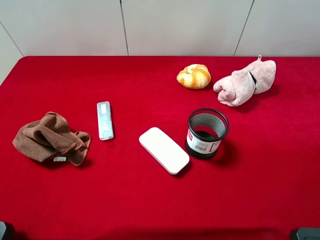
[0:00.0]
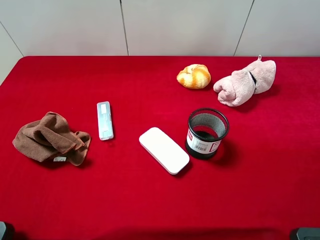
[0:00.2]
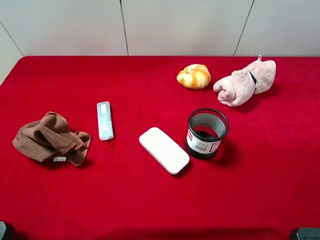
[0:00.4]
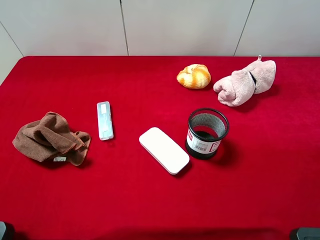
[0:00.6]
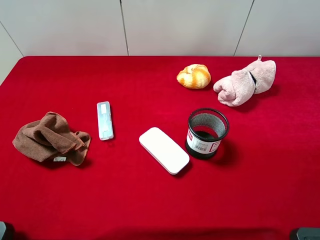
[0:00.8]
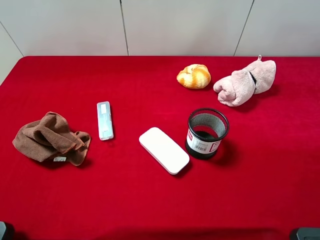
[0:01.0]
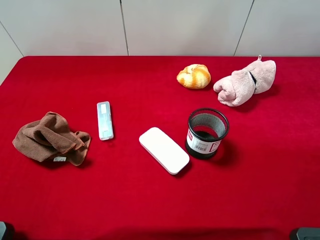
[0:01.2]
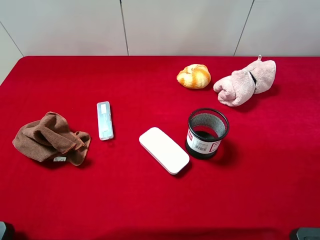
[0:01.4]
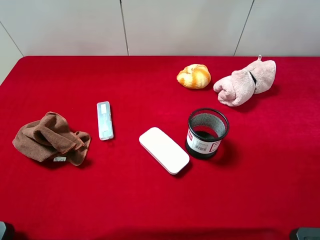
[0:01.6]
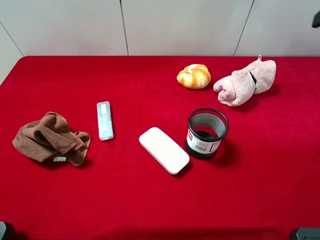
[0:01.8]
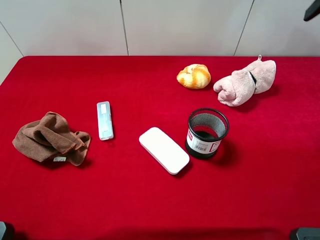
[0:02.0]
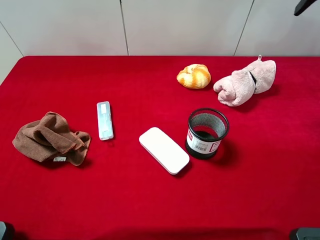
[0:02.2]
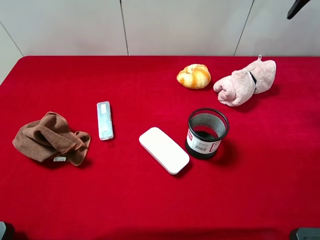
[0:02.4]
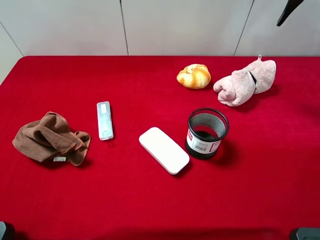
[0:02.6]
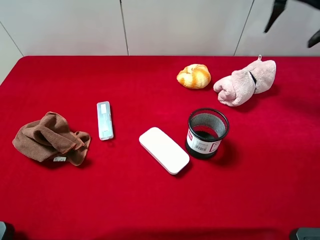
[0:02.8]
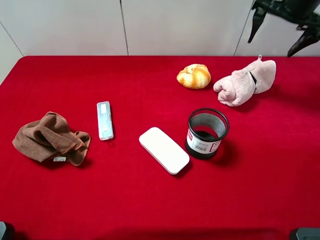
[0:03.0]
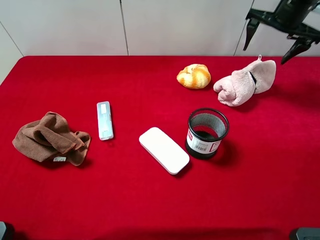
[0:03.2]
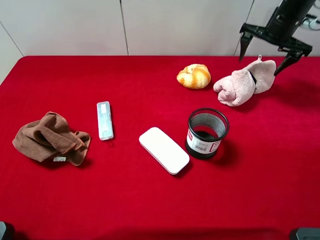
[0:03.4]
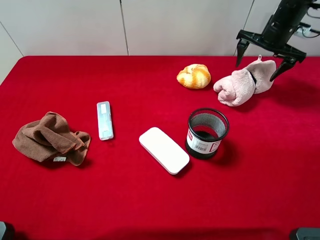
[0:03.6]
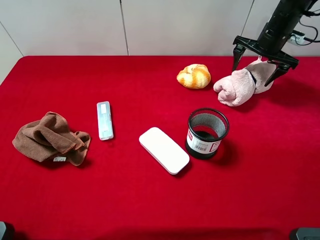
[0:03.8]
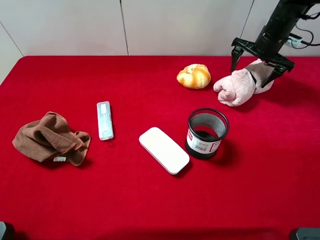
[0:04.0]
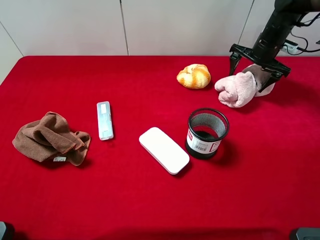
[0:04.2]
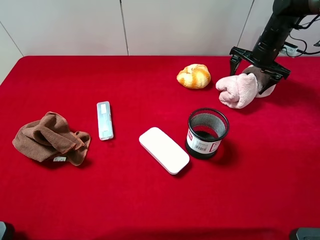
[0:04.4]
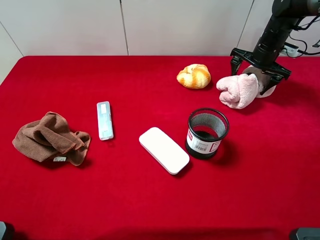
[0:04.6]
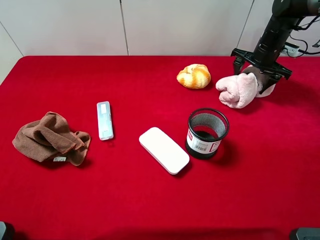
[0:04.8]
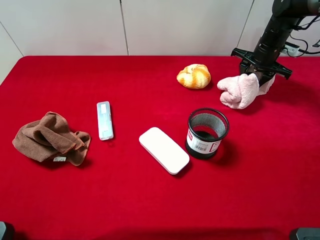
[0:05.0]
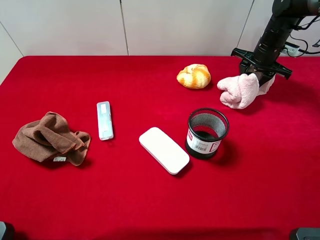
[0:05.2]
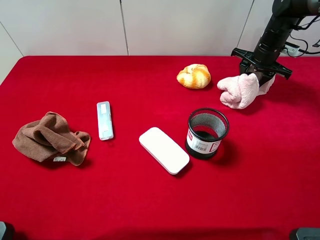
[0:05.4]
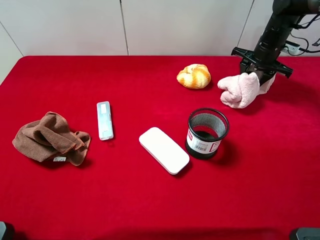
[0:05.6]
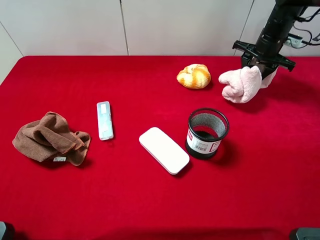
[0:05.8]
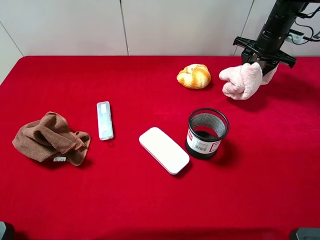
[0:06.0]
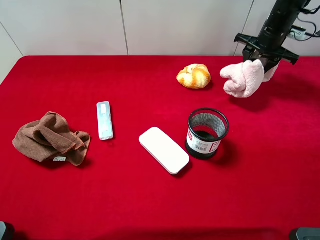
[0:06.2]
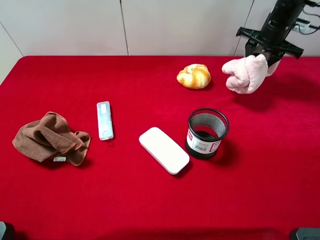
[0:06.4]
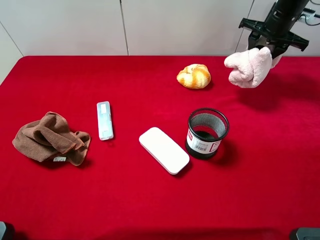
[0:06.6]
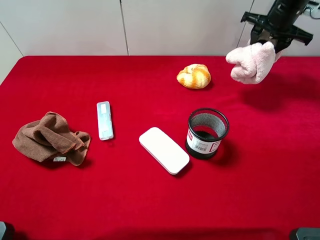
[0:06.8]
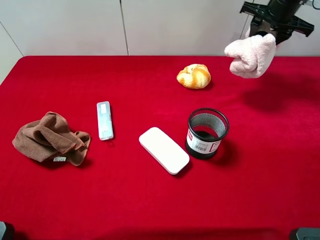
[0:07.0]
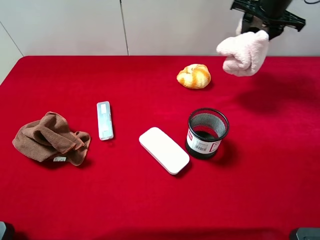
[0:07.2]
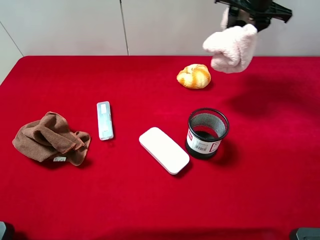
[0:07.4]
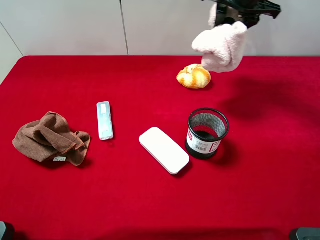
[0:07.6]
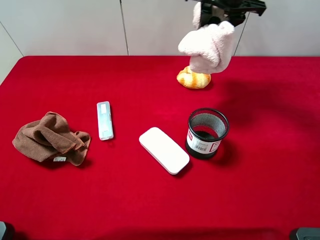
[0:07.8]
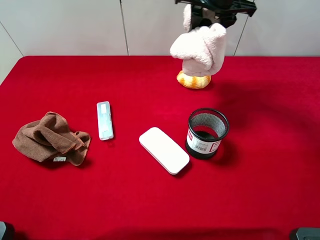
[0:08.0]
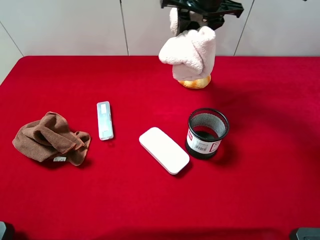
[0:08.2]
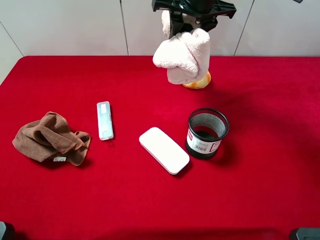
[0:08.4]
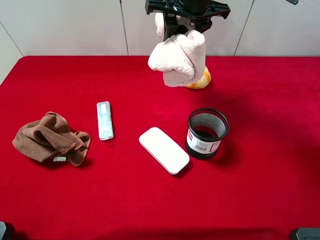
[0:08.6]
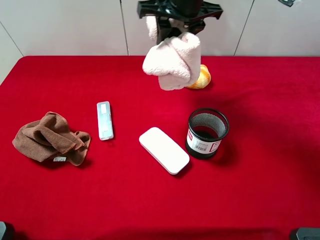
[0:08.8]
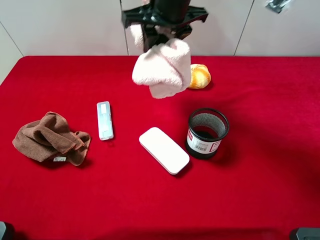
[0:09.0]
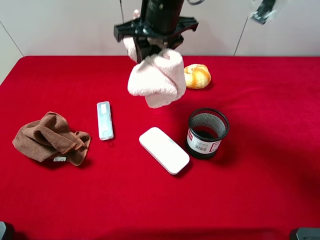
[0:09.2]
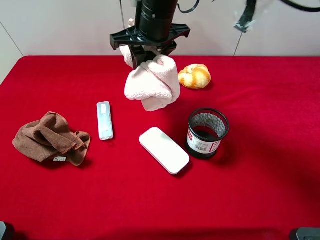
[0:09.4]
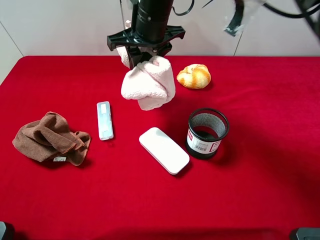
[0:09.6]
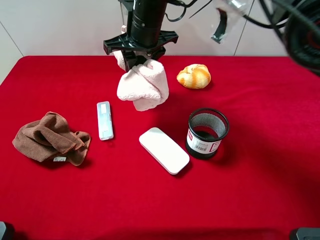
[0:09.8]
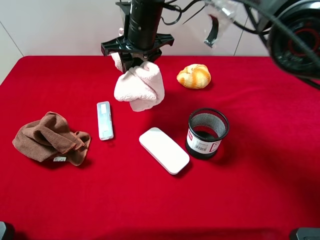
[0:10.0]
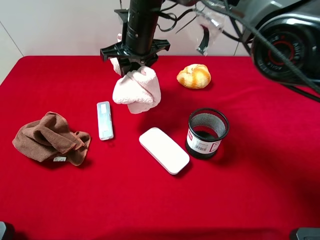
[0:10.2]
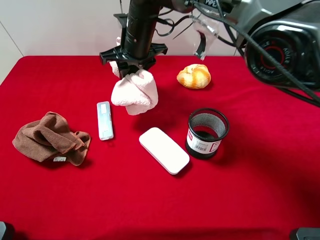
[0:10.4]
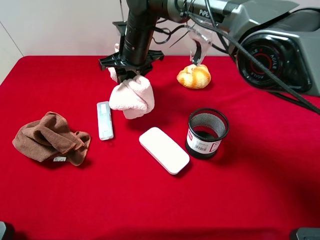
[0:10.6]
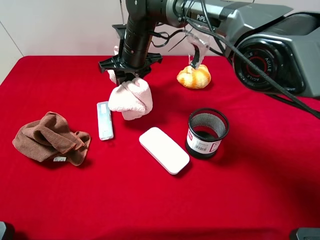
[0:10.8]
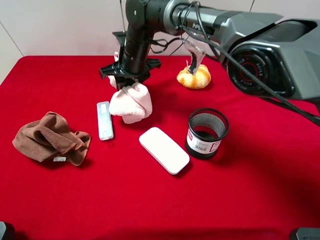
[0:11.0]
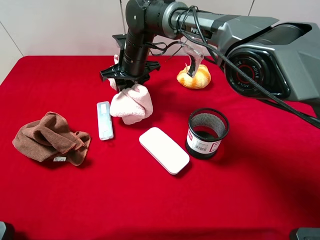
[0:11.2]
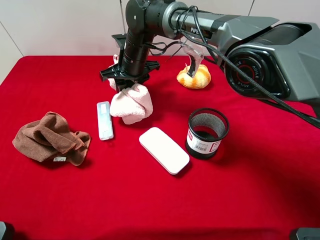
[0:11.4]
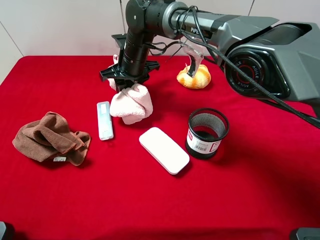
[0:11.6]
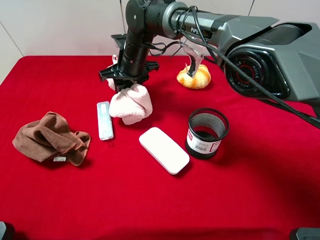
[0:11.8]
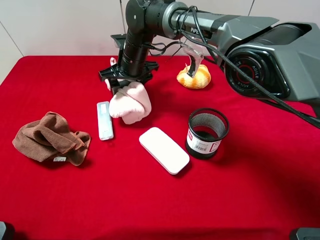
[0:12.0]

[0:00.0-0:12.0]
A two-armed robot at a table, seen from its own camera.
Task of the whole recording: the gripper move the object.
Step, 0:00.0 to 0:05.0: Grasp the pink towel with the right gripper.
0:01.6 to 0:03.0: The right gripper is displaced forward and downward by roughly 25 cm.
0:03.0 to 0:04.4: The right gripper moves downward, some 15 cm.
0:04.4 to 0:06.0: The right gripper closes up.
0:06.0 to 0:07.6: The right gripper shifts roughly 15 cm upward and to the left.
0:07.6 to 0:09.0: The right gripper is displaced to the left and backward by about 15 cm.
0:09.0 to 0:10.4: The right gripper goes some 10 cm downward and to the left.
0:10.4 to 0:12.0: The right gripper shifts some 5 cm downward, and opens its fingers.

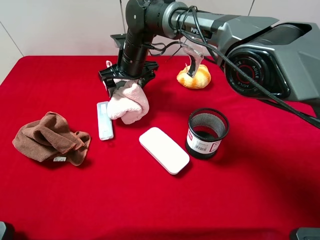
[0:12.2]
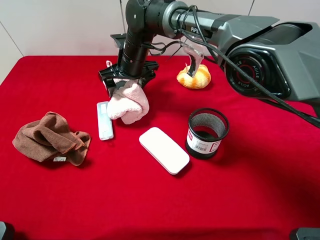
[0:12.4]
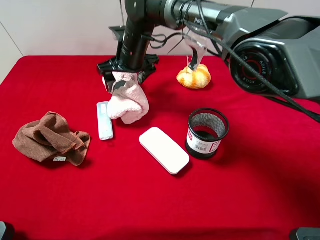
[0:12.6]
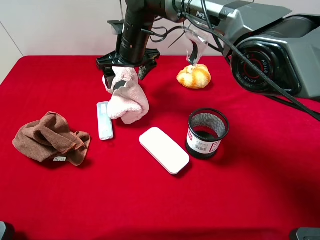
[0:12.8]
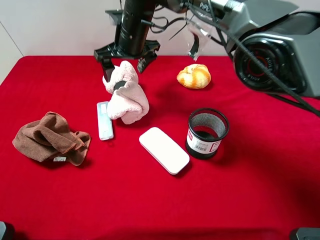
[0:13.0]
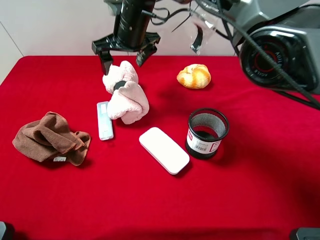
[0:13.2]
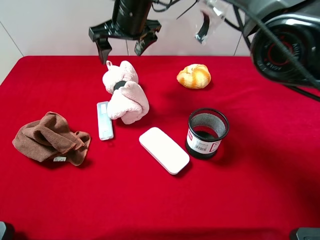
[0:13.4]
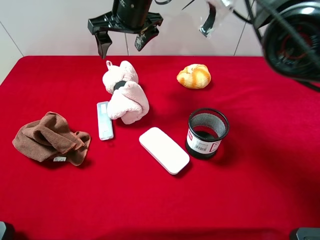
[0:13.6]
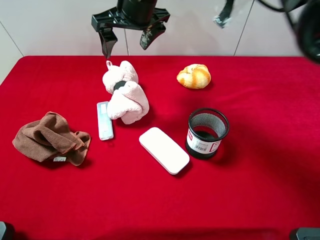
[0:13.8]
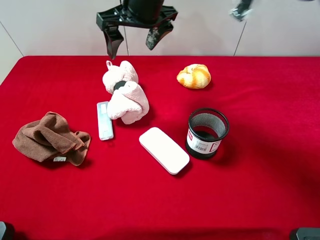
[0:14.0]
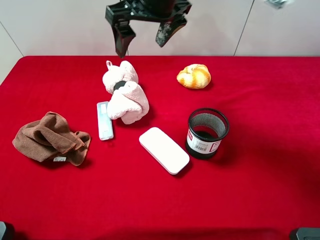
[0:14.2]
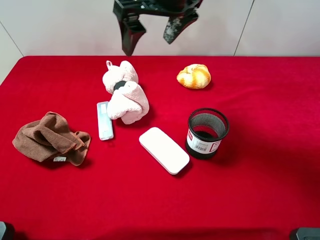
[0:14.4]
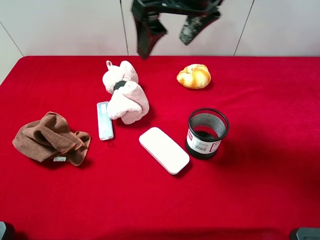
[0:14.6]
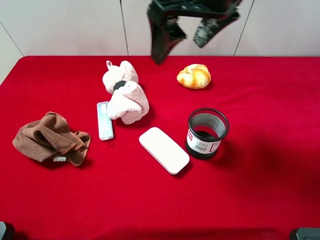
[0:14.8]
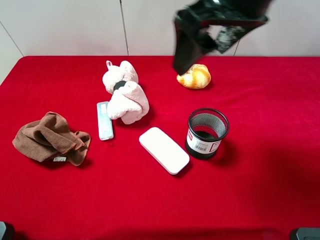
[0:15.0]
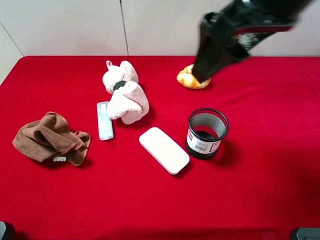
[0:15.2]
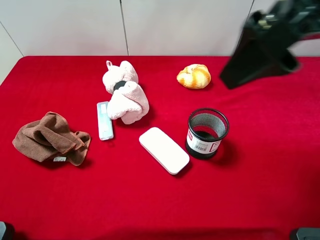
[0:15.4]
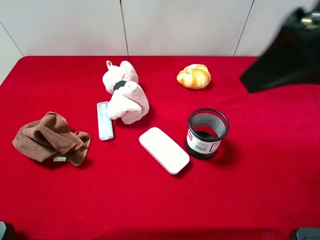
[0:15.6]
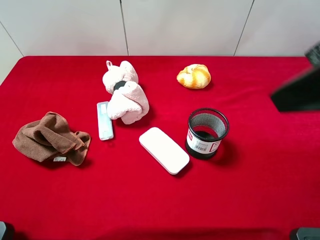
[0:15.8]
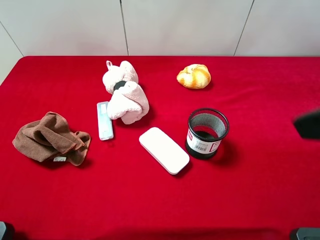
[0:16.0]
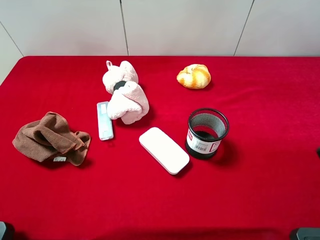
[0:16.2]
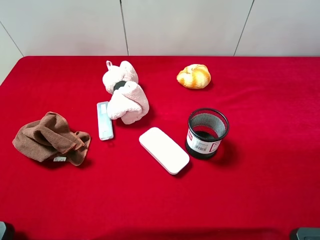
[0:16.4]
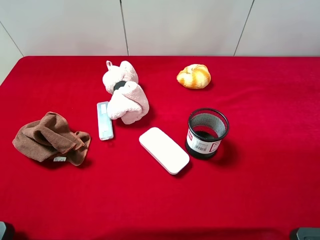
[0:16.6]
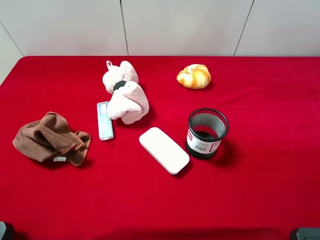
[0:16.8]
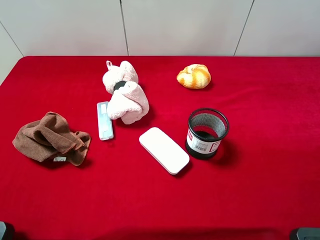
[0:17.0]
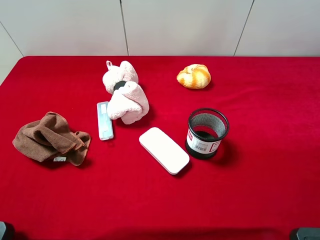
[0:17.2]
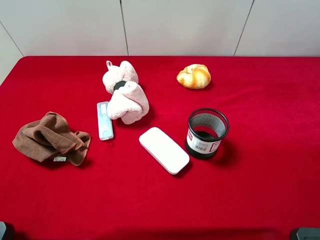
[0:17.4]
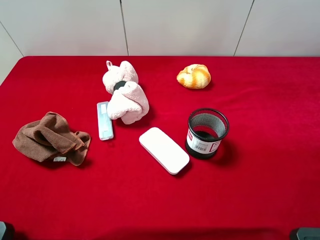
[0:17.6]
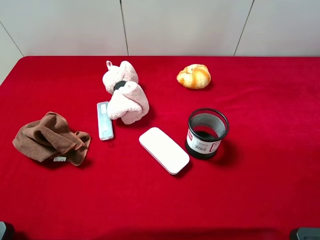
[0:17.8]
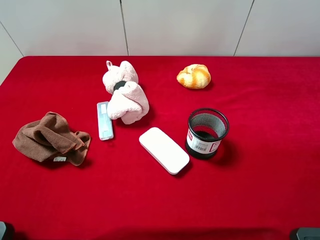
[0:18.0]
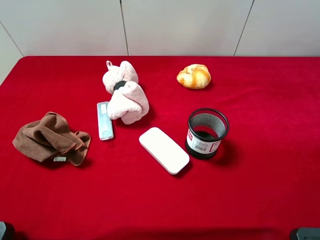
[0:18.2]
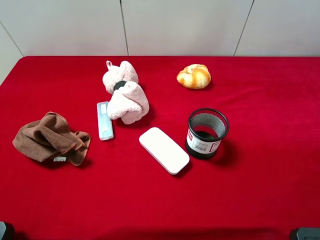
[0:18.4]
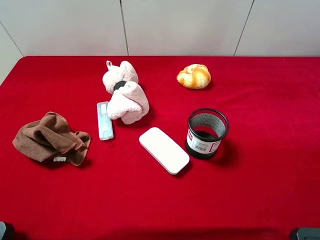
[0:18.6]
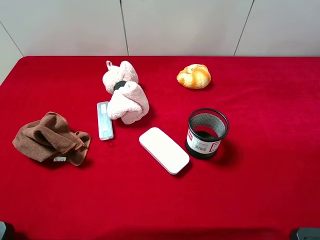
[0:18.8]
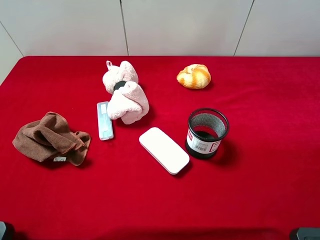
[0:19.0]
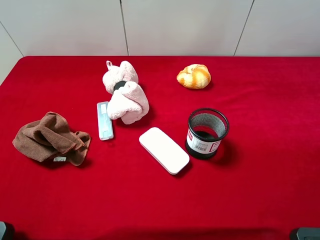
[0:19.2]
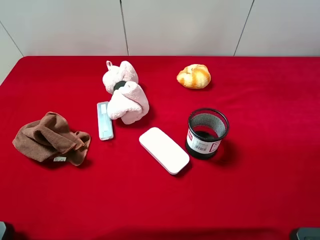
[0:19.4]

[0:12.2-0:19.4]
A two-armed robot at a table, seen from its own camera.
Task of the whole recording: the gripper move the object.
0:12.2 to 0:13.6: The right gripper travels upward by about 15 cm.
0:13.6 to 0:15.0: The right gripper heads backward, to the right and upward, covering about 25 cm.
0:15.0 to 0:16.6: The right gripper travels to the right and backward by some 25 cm.
0:18.0 to 0:19.4: Both grippers stay about where they are.

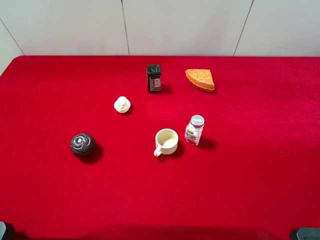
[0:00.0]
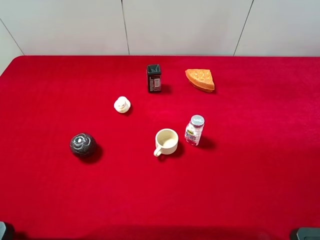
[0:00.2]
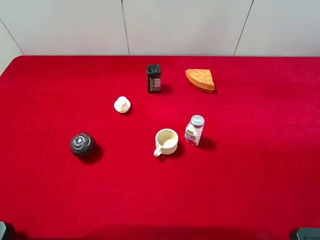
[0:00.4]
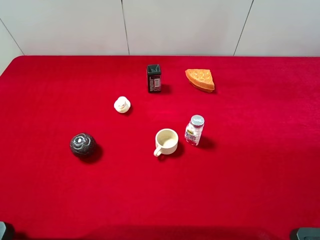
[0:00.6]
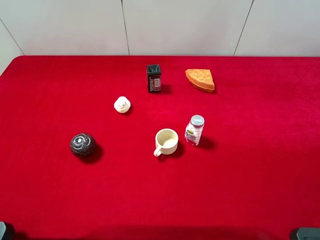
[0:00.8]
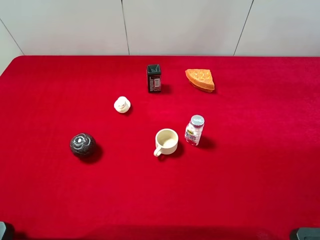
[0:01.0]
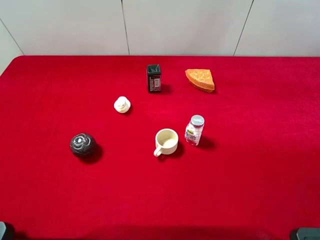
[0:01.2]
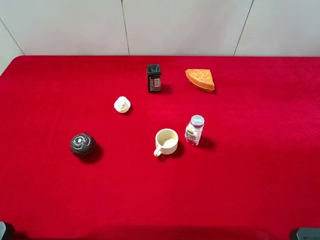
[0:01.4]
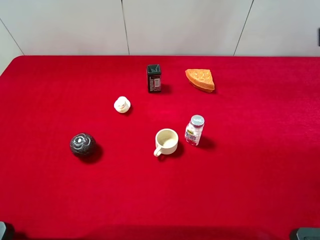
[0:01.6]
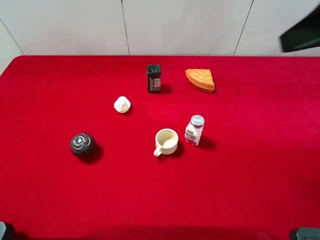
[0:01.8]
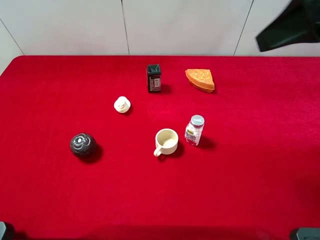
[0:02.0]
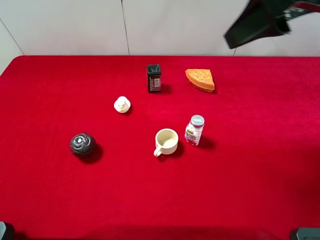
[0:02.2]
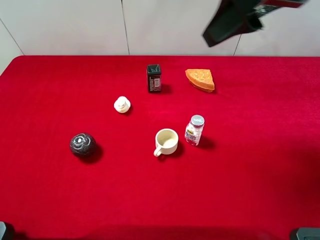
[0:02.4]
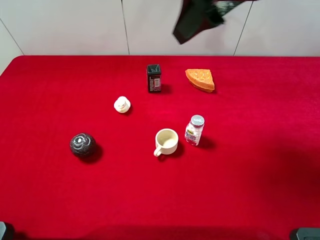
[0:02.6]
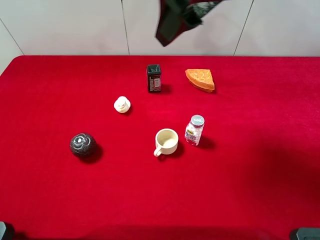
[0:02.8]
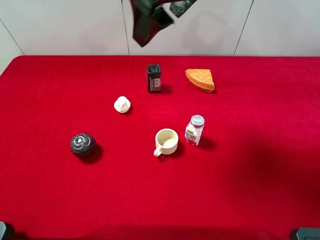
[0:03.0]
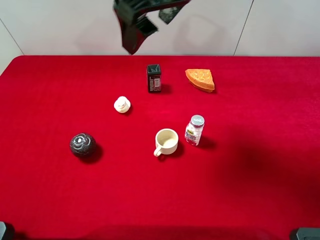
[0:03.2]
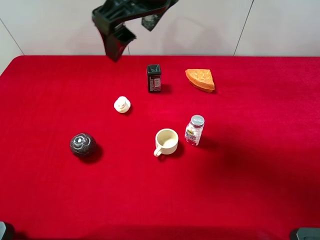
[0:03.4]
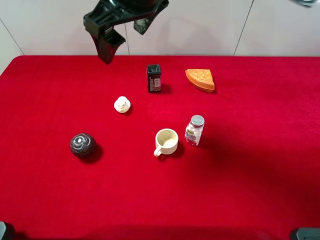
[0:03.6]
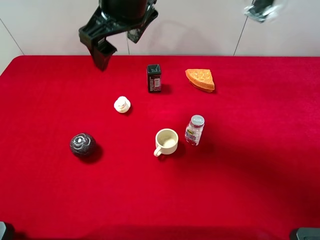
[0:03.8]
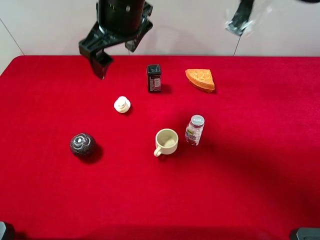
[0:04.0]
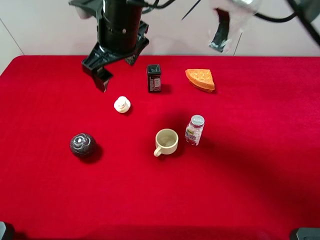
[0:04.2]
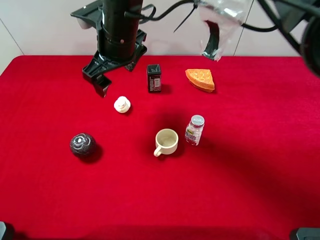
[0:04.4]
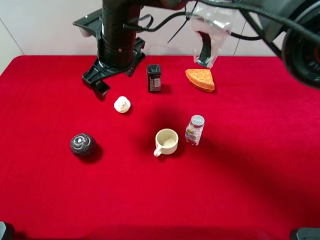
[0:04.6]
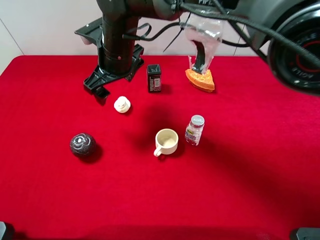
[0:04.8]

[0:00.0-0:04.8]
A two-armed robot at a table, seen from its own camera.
Task of the whole recording: the gripper move the object.
0:01.6 to 0:03.2: The right gripper is displaced to the left and forward by some 30 cm.
0:03.2 to 0:04.8: The right gripper moves downward and to the left, approximately 20 cm.
